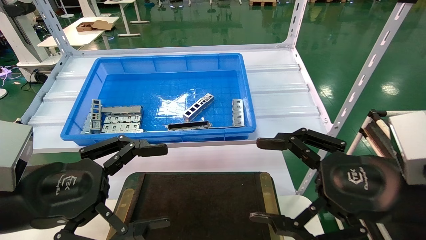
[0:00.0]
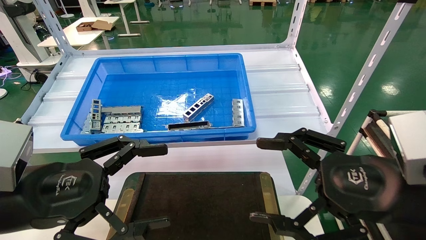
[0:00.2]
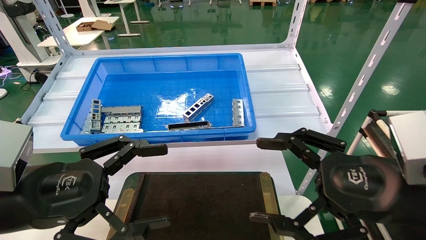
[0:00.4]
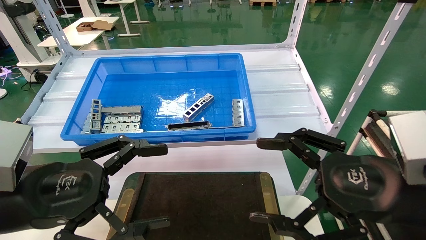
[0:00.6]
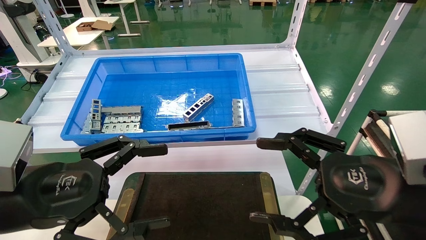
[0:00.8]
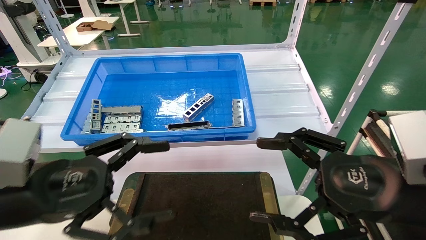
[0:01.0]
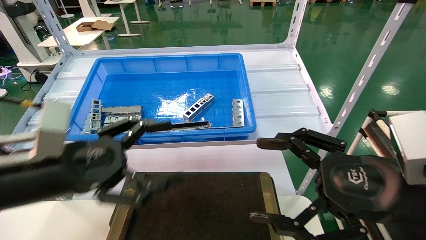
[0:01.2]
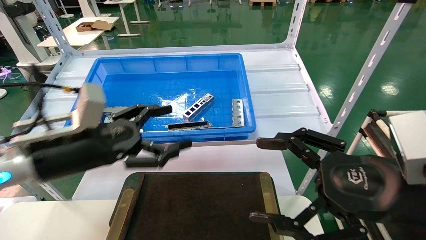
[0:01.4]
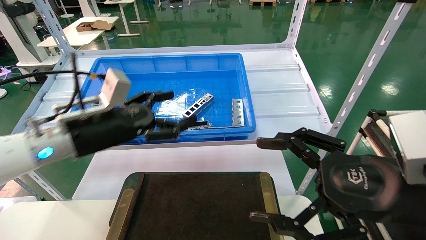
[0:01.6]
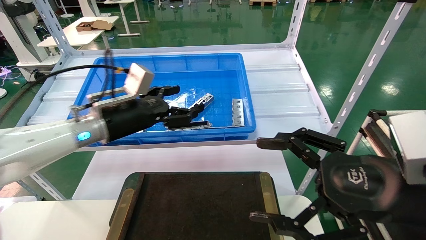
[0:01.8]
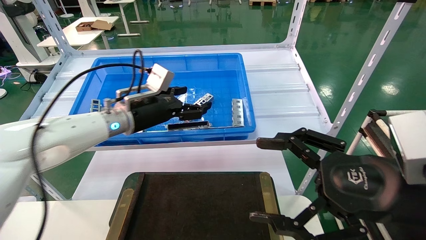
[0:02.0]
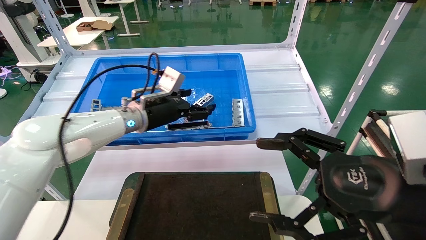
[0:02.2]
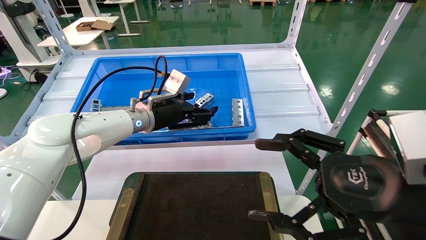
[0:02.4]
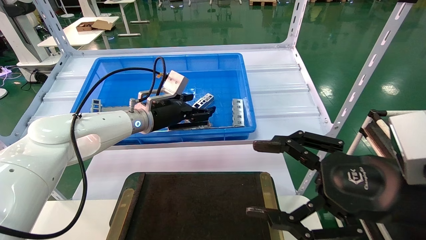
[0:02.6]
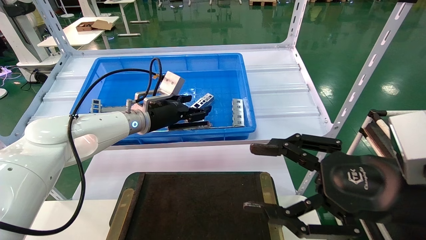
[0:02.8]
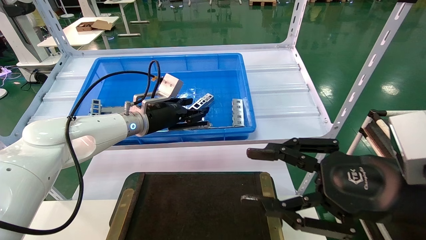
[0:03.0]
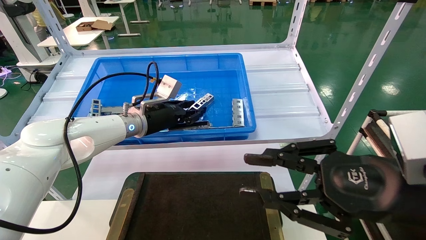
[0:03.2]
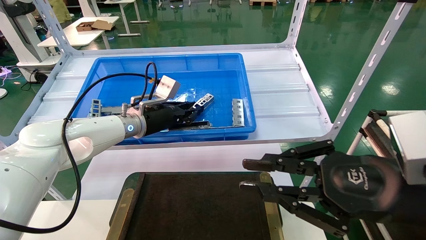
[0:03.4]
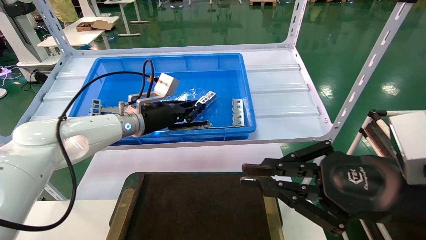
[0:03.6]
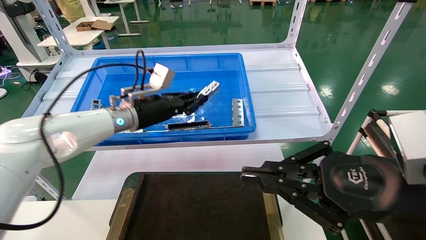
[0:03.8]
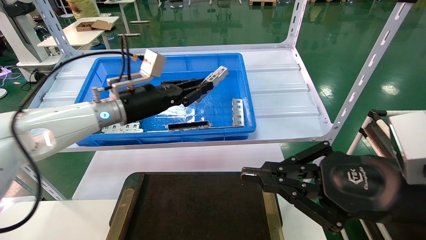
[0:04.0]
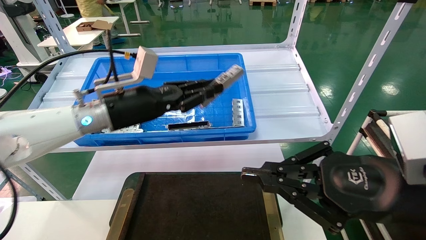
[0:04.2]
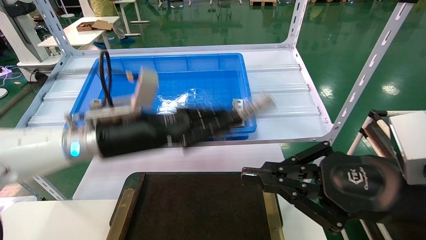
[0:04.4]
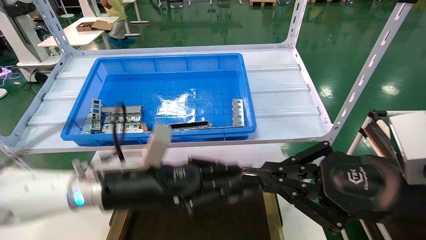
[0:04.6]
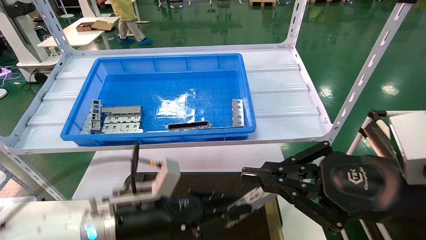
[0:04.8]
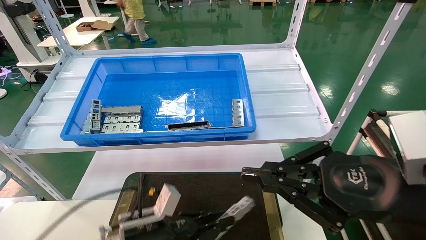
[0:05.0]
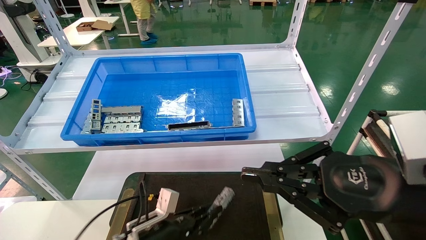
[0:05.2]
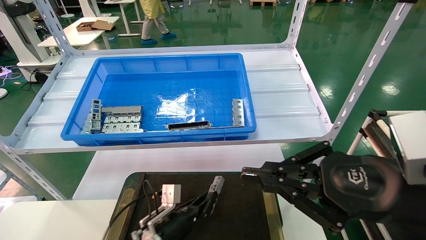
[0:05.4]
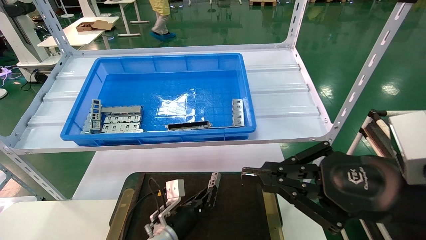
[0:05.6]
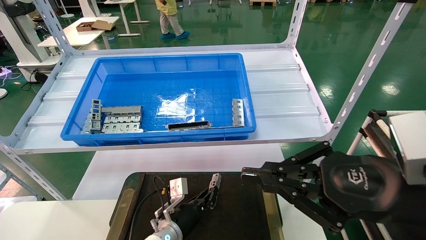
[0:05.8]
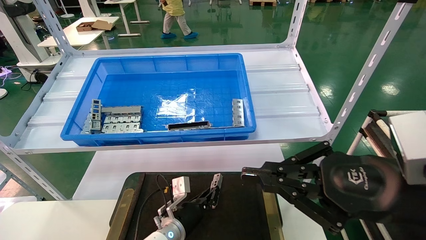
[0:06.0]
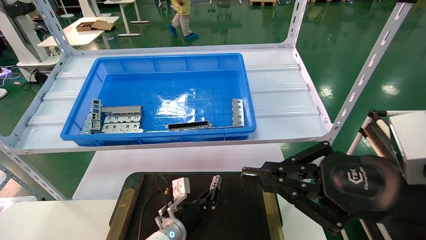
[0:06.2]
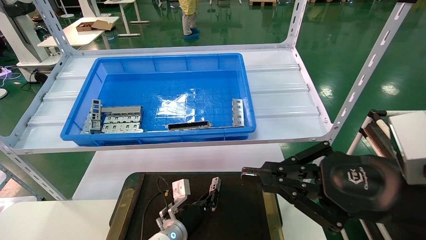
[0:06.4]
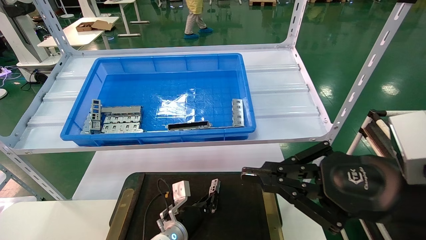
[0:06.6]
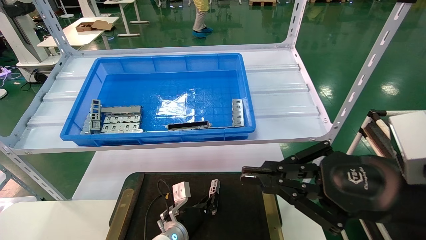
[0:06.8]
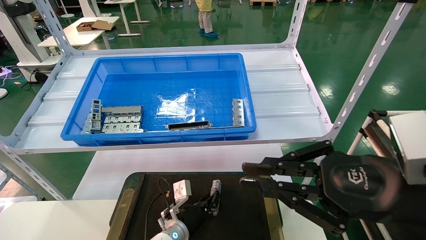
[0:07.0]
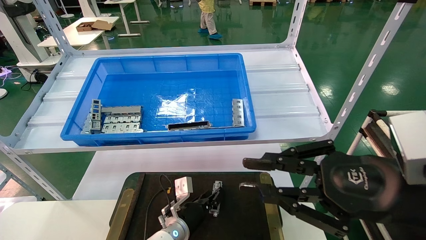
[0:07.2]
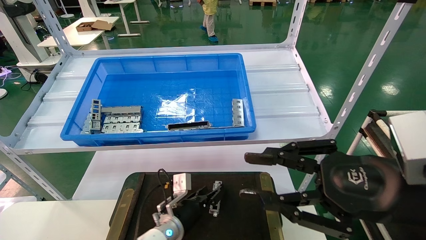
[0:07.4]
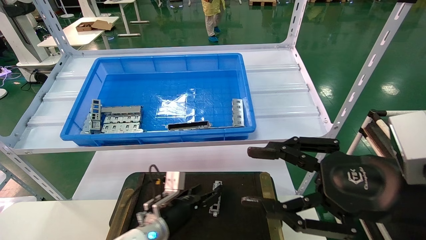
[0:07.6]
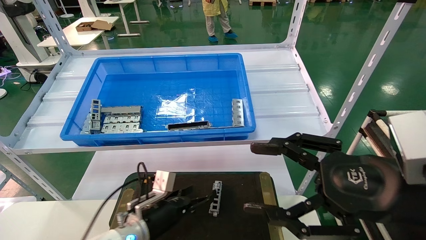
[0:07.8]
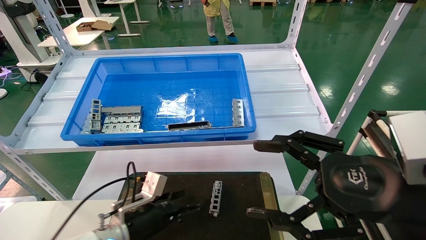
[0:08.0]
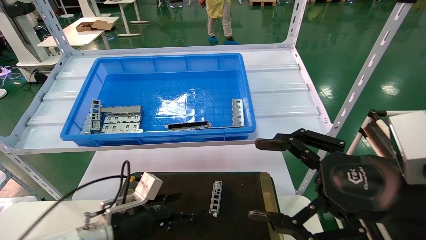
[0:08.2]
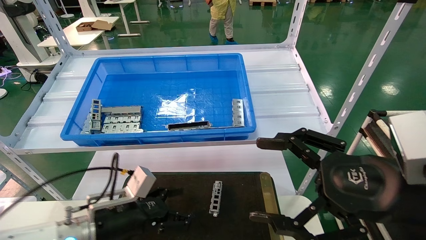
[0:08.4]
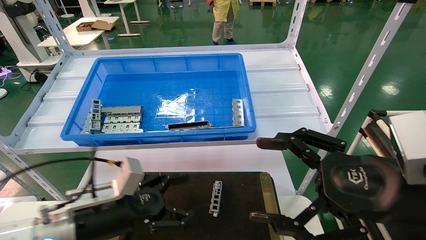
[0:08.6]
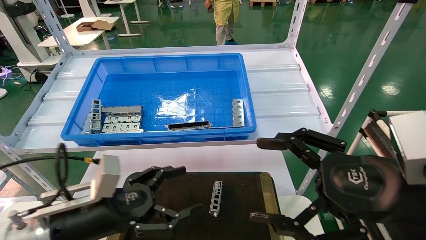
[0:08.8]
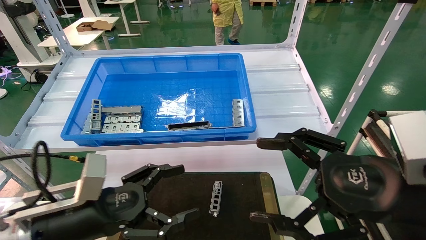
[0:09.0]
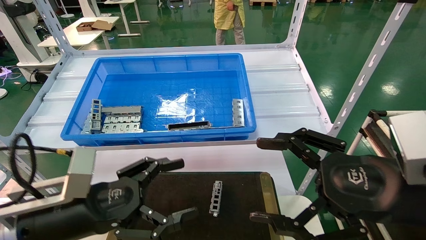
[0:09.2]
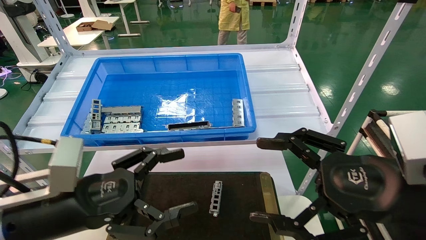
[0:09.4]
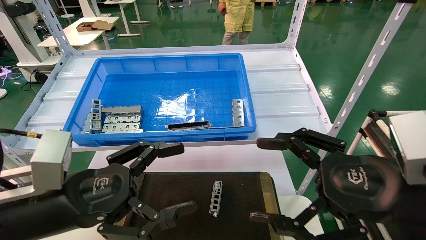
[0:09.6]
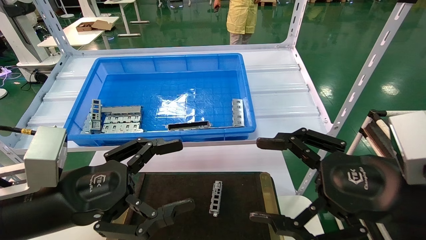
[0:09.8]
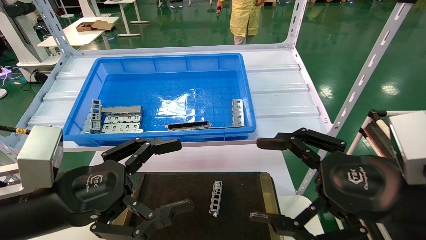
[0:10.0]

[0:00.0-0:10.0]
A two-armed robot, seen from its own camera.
Task of the whole recording: Grasp the part with one hand and place it on the black container.
Step, 0:01.0 to 0:03.8: Pick up the front USB bracket from the feeding area.
Step, 0:04.0 to 0:07.2: Place the front USB bracket into the box.
0:00.0 to 0:01.4: The left gripper travels forward by about 10 cm.
0:01.4 to 0:02.8: The left gripper is displaced forward and to the right by approximately 20 cm.
0:02.8 to 0:04.2: The right gripper closes up. Meanwhile the left gripper goes some 10 cm backward, and closes up.
0:04.2 to 0:05.8: The left gripper goes some 30 cm downward.
0:05.8 to 0:07.2: The grippers make only small movements.
0:07.2 to 0:08.6: The right gripper opens its fingers, while the left gripper shifts about 25 cm upward, backward and to the left, and opens its fingers.
0:08.6 to 0:10.0: The left gripper is displaced upward and backward by about 10 cm.
